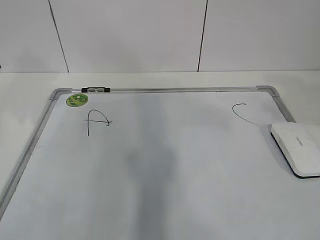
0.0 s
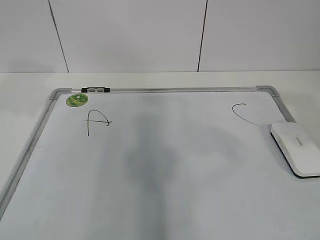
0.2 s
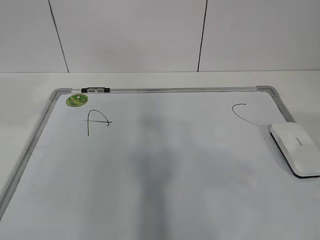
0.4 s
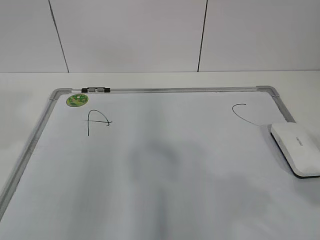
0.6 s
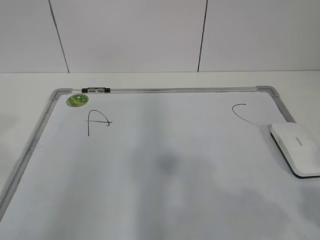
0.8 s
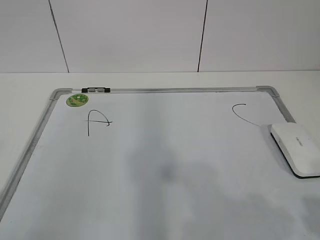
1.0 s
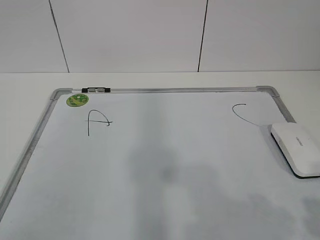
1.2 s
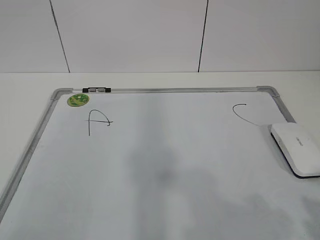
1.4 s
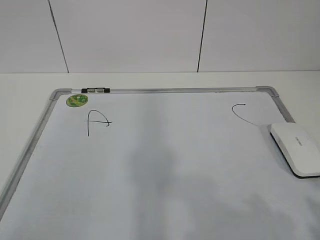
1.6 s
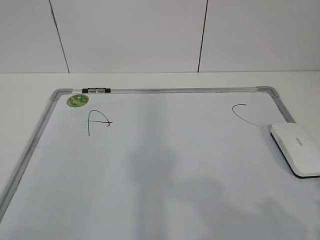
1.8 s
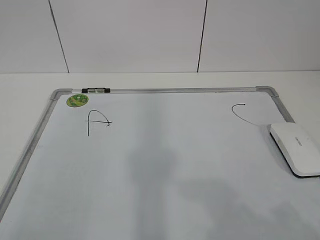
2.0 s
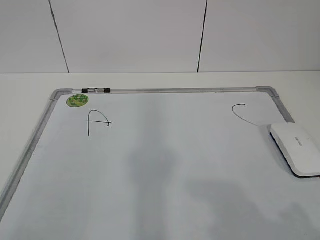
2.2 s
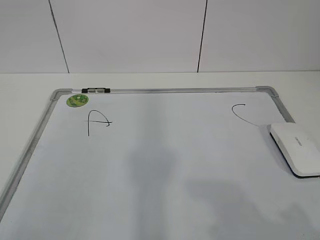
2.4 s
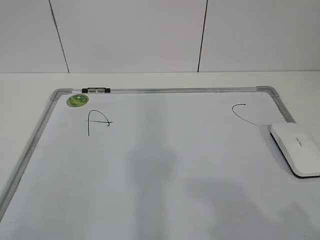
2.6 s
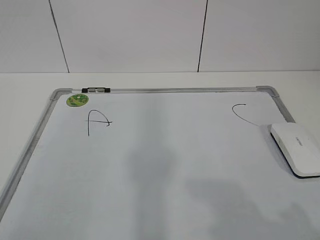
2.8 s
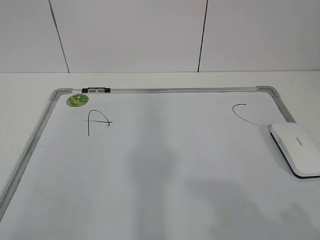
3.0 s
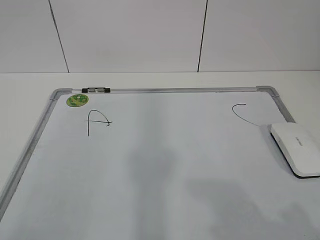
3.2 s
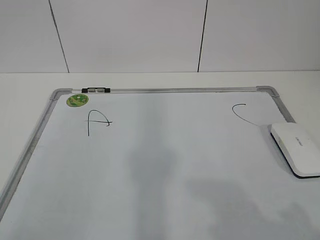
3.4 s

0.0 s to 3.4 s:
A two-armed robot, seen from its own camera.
Task of the whole recording: pick up the eraser on the blackboard and erase the letter "B".
0.0 to 1.6 s: The left gripper goes about 30 cm backward, while the right gripper travels backward and downward by roughly 20 cm.

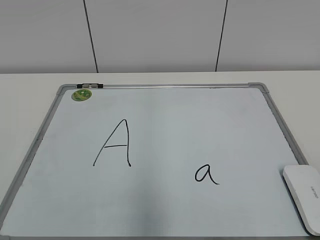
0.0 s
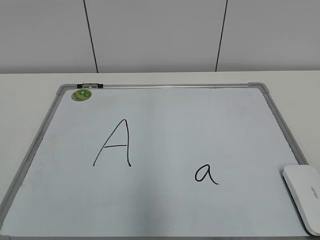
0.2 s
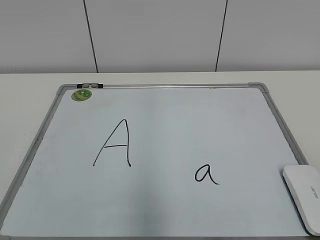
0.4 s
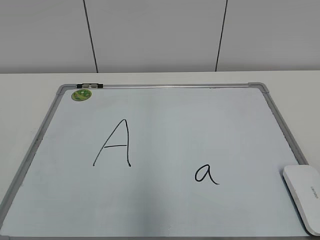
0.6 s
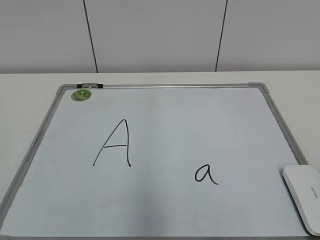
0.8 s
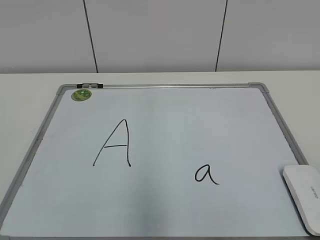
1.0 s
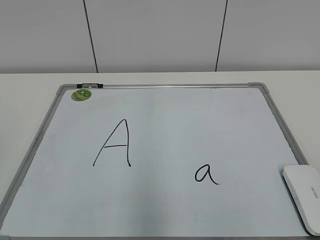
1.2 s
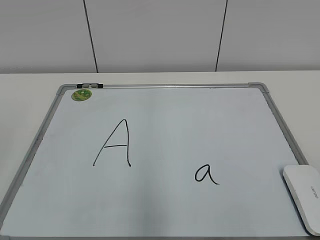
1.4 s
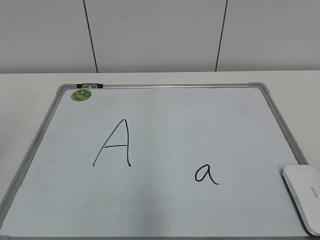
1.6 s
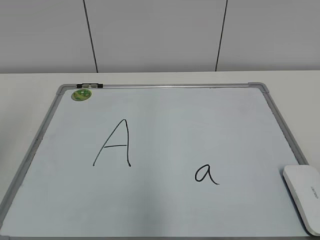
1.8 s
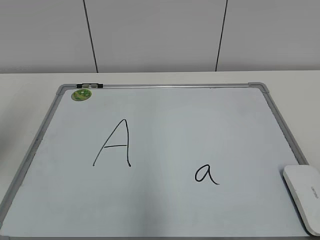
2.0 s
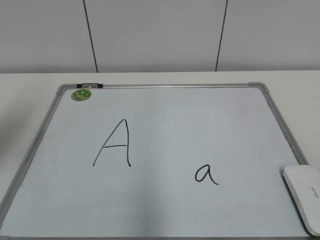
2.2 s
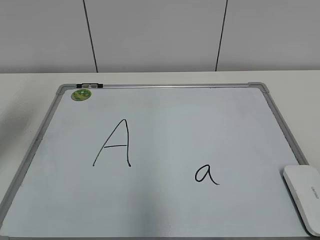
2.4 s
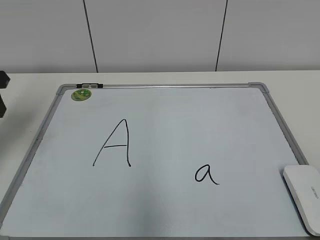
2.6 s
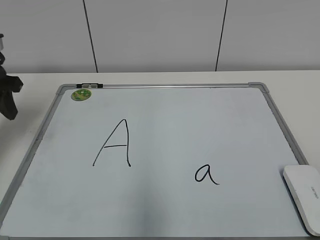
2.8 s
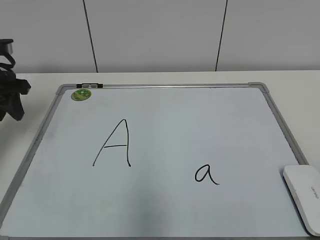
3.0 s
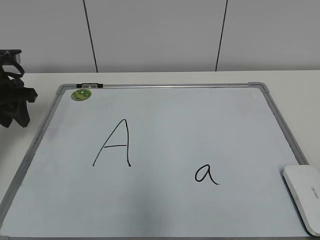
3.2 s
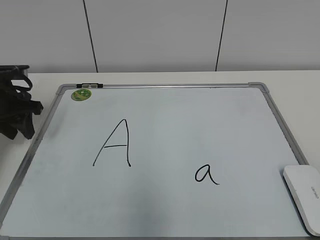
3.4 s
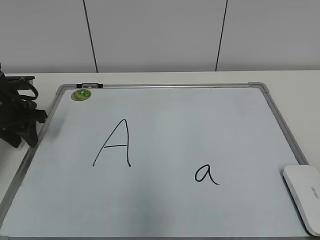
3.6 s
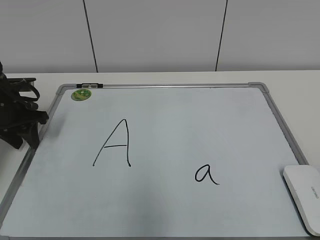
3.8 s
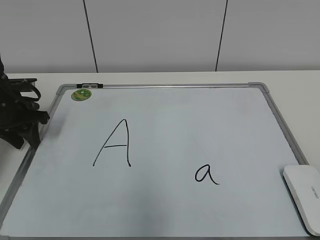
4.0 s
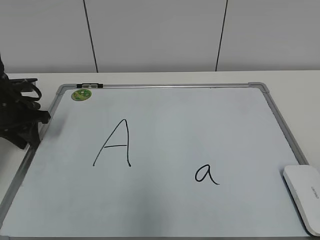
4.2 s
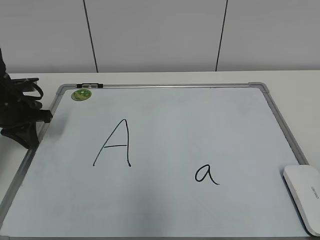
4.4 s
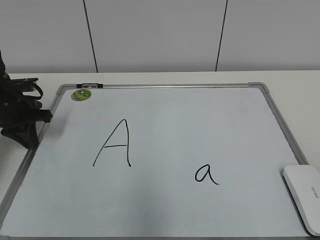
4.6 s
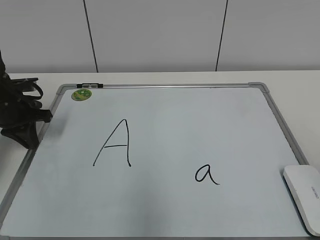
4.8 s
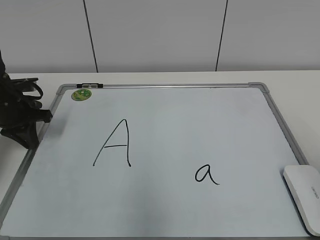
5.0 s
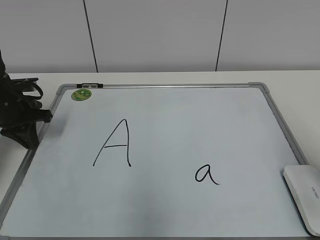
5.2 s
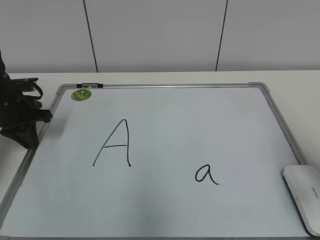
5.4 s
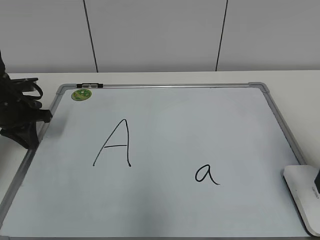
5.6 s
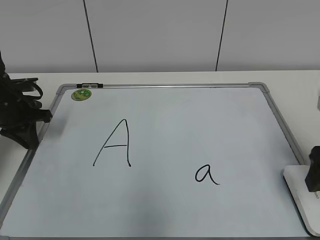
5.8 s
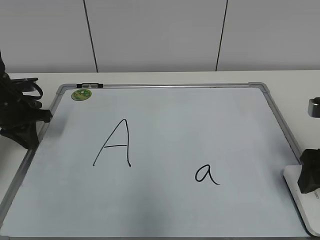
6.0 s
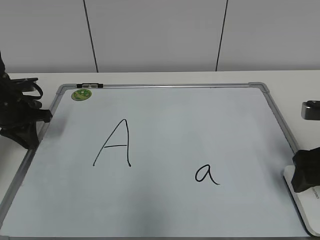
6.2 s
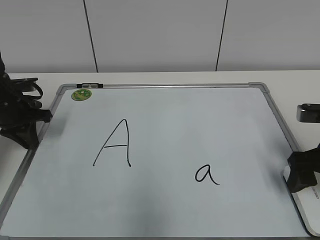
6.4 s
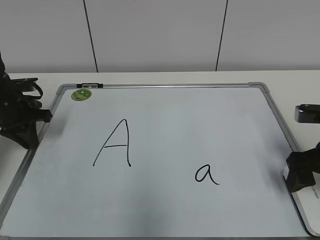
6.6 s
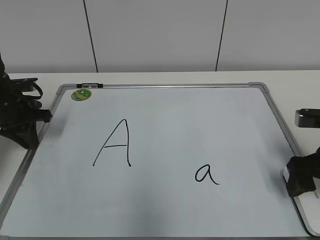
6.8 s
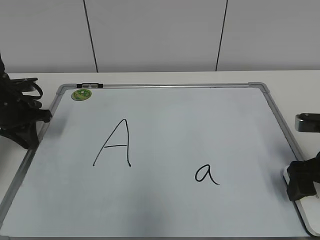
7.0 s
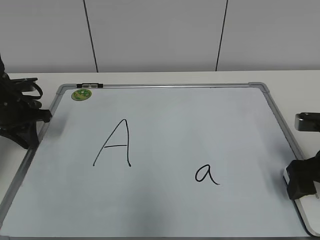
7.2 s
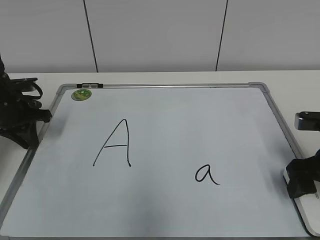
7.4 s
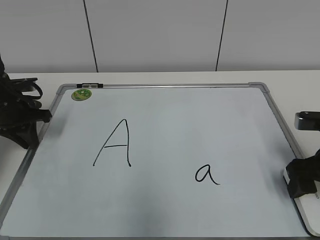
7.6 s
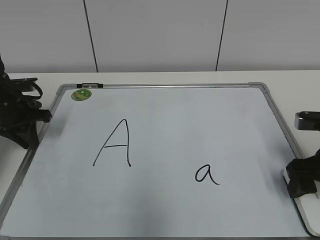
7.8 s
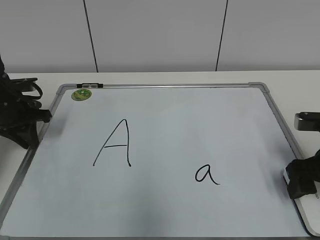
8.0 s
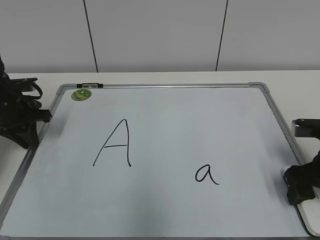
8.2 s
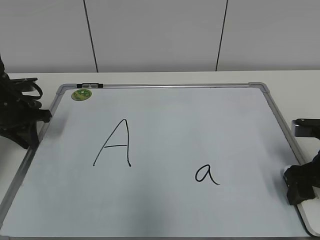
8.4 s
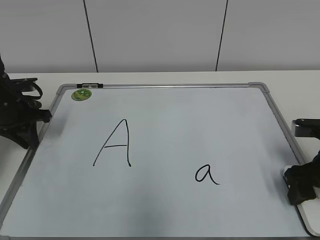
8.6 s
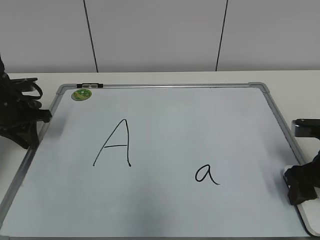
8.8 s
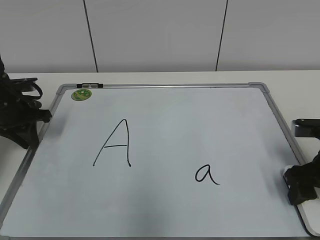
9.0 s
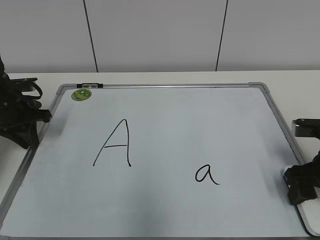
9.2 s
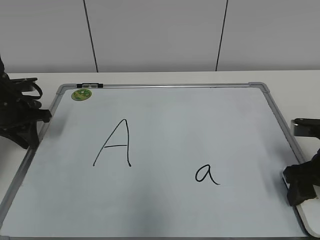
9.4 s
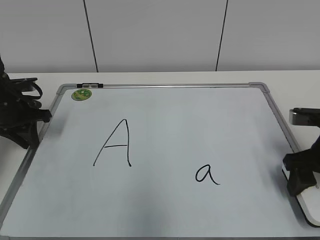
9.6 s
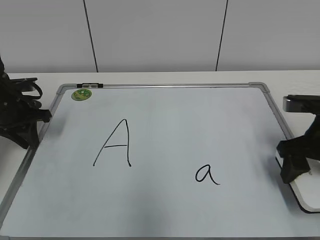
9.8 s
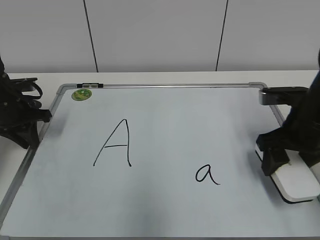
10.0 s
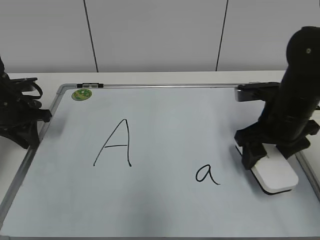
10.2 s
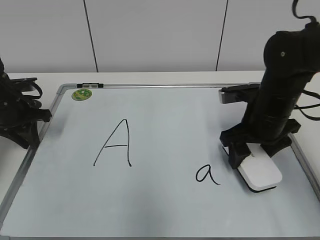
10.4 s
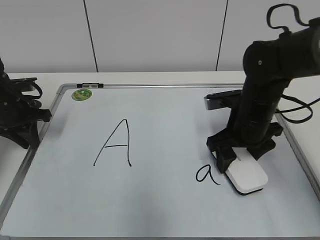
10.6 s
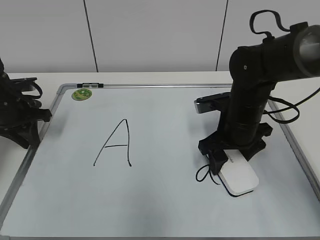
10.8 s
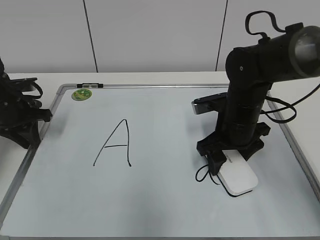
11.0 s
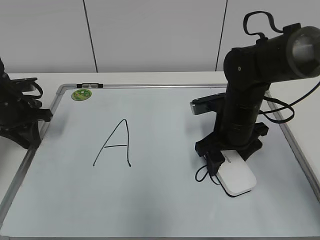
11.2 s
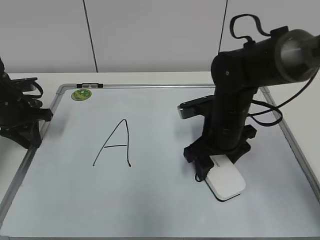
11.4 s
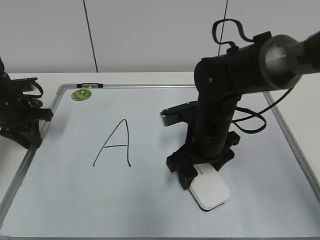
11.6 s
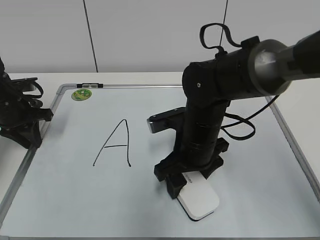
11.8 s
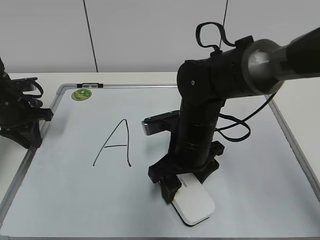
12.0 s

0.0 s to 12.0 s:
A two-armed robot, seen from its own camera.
Task of the whole recording: pick up the eraser on the blackboard and erase the letter "a".
Step, 0.0 to 7.6 s: Hold the drawing board steady with your left hand.
Step, 7.8 to 8.2 s: Grab the eraser with your right hand.
Step, 8.6 to 12.0 s: Erase the letter a with your right hand.
1.6 to 3.0 s: The left gripper moves forward and downward, approximately 25 cm.
3.0 to 4.4 s: The left gripper travels downward by approximately 10 cm, and closes.
4.4 to 6.0 s: The right gripper travels forward by some 25 cm, and opens.
6.0 to 7.6 s: The right gripper closes up.
7.6 to 9.0 s: The right gripper closes up.
9.0 to 10.4 s: The right gripper travels to the left and forward by some 15 cm.
10.4 to 12.0 s: The right gripper goes roughly 10 cm to the left.

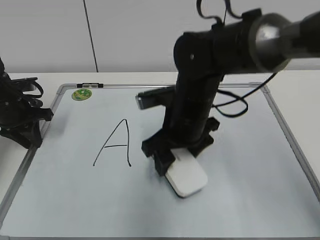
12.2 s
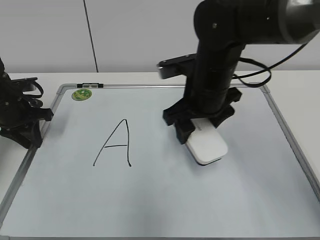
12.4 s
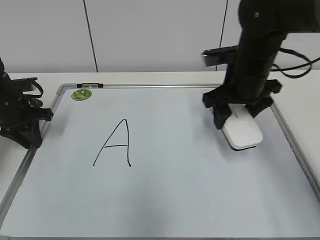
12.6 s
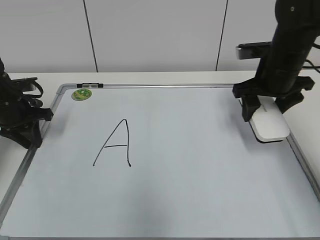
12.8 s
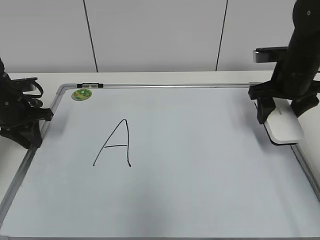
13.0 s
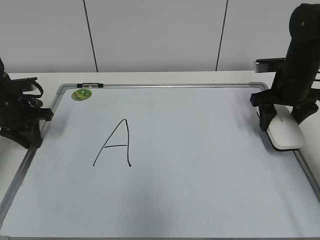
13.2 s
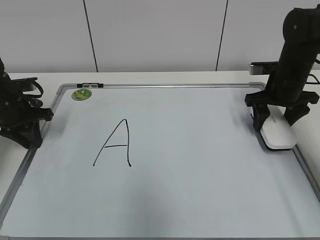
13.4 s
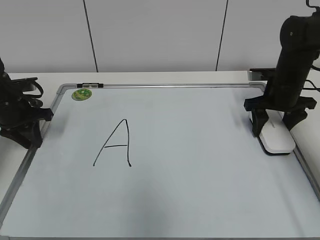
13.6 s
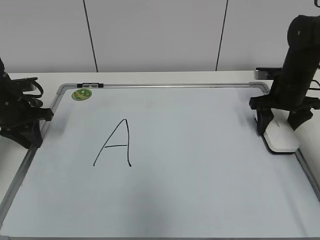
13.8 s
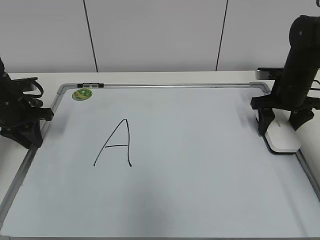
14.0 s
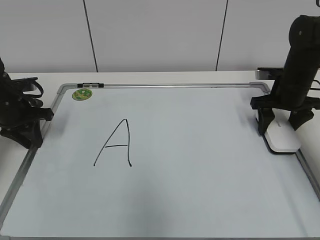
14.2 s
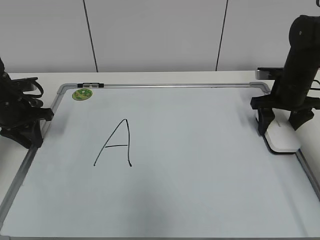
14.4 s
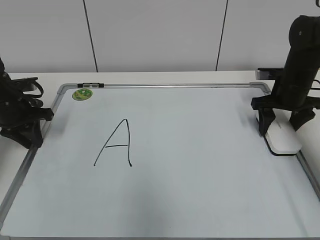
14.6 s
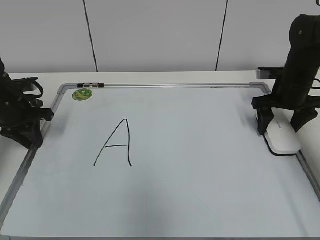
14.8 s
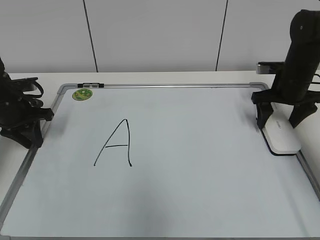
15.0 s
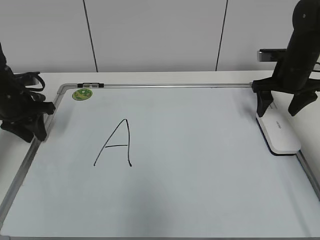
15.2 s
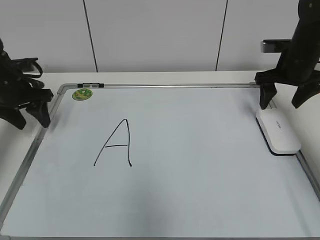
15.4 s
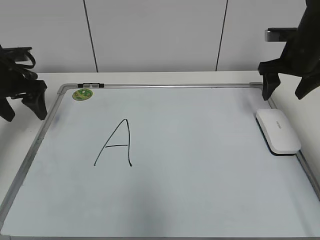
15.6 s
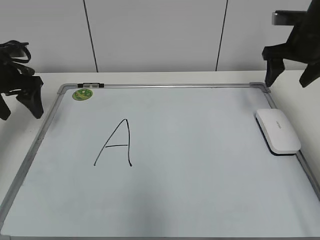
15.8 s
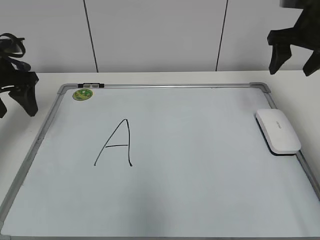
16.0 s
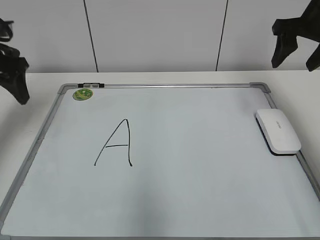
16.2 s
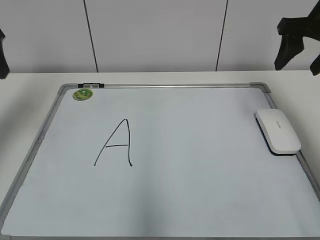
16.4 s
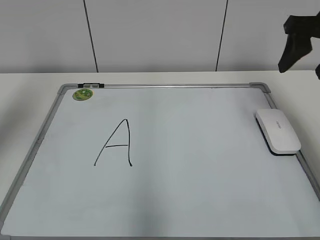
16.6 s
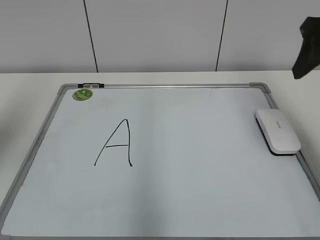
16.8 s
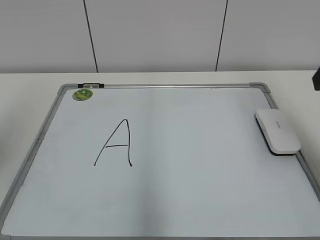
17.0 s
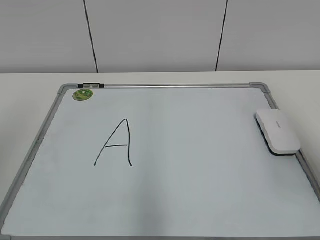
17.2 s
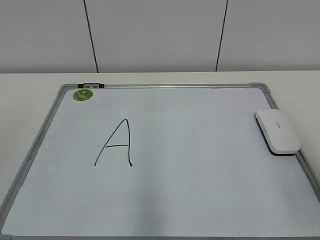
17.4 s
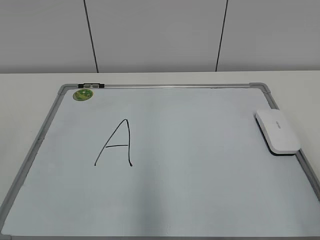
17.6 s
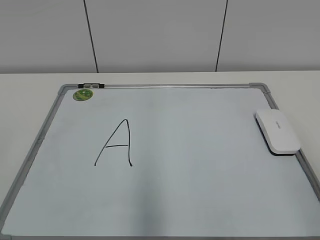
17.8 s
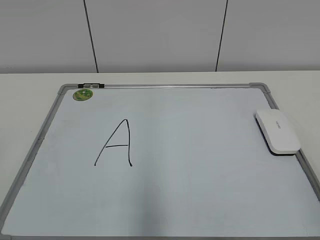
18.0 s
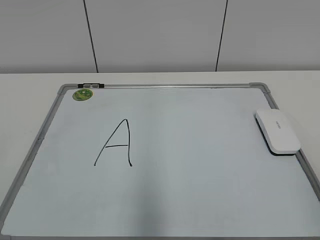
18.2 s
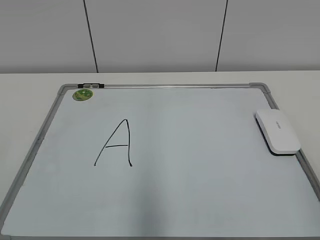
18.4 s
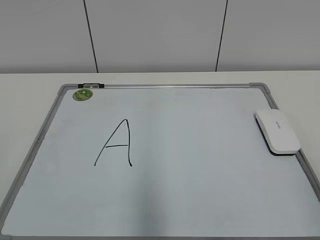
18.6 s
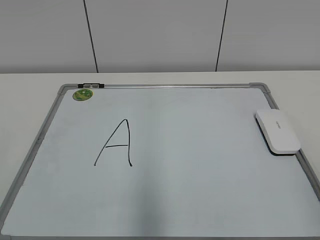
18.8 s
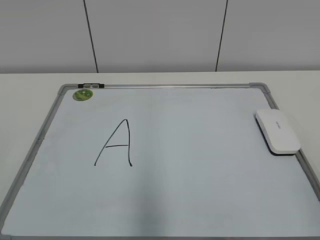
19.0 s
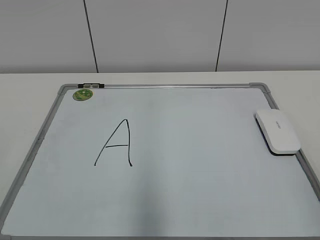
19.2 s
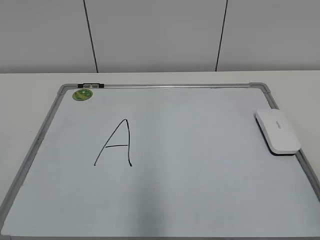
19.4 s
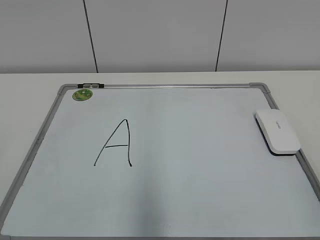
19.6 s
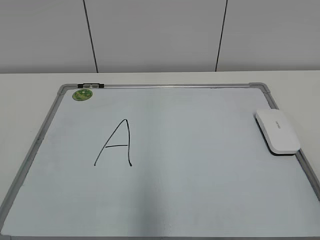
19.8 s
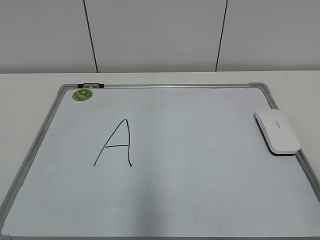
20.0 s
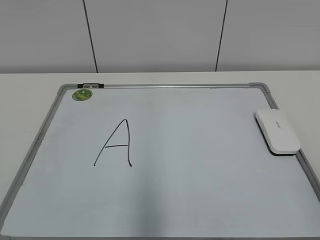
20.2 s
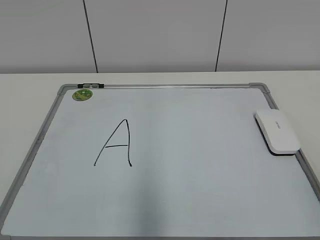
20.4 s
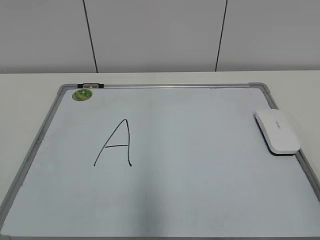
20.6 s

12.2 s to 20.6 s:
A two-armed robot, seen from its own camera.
Task of the whole recording: pick up the eraser on the blackboard and erase the letter "a".
Step, 12.2 to 14.6 s: Put down the eraser with your right hand.
12.2 to 13.6 s: The right gripper is displaced to the right and forward by approximately 25 cm.
13.6 to 15.0 s: The right gripper opens.
15.0 to 16.4 s: The left gripper shifts roughly 20 cm upward, and opens. The right gripper travels upward and backward by approximately 15 cm, and closes its fingers.
16.4 to 17.8 s: Both grippers travel together backward, approximately 35 cm.
